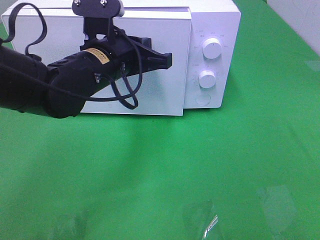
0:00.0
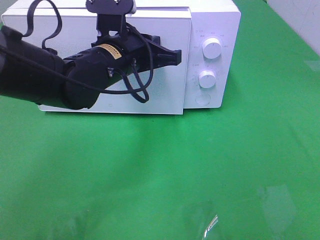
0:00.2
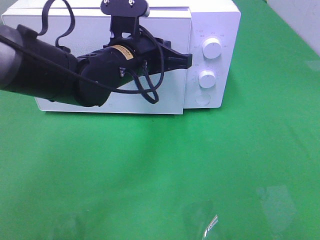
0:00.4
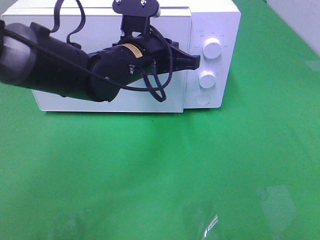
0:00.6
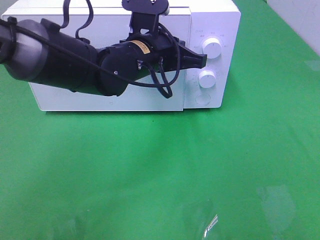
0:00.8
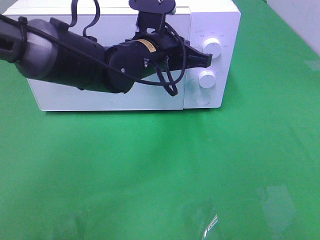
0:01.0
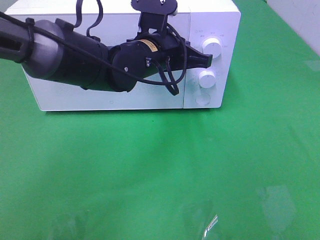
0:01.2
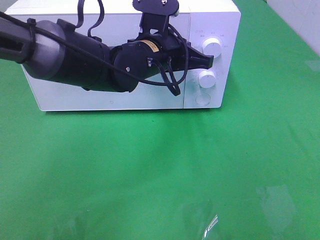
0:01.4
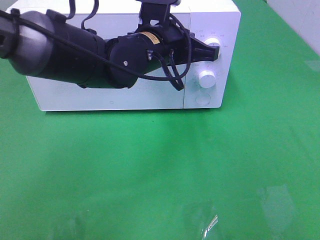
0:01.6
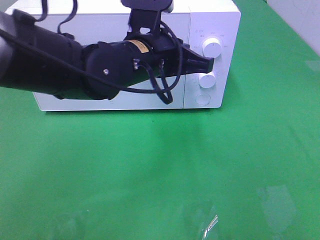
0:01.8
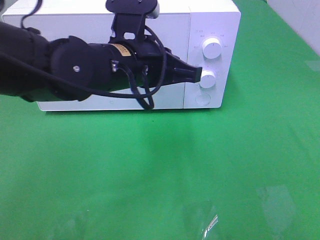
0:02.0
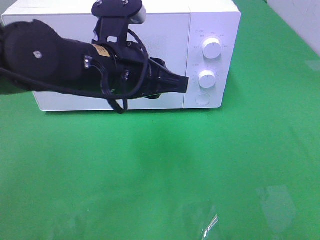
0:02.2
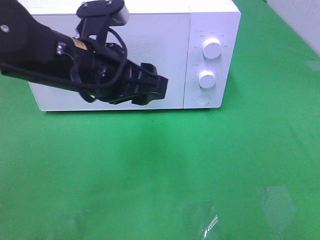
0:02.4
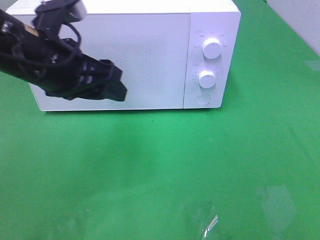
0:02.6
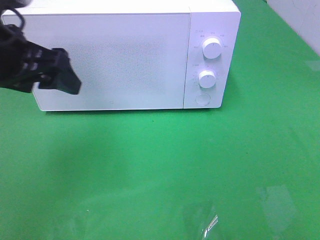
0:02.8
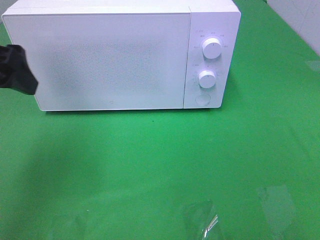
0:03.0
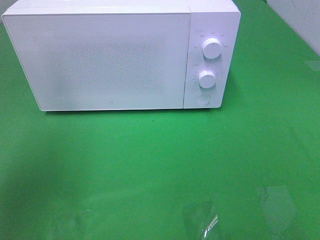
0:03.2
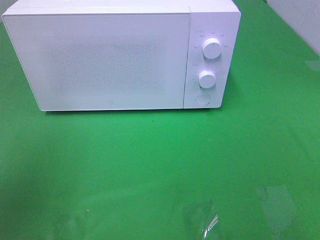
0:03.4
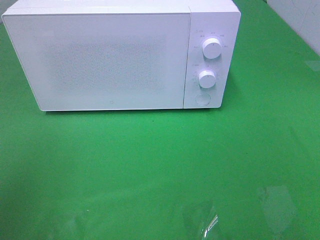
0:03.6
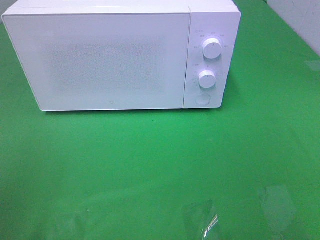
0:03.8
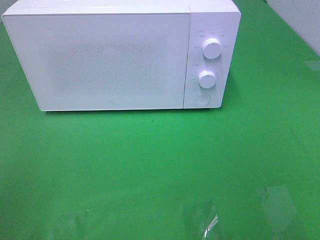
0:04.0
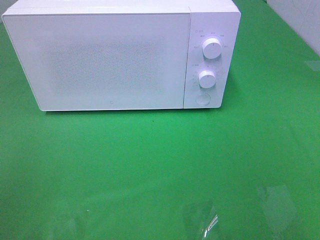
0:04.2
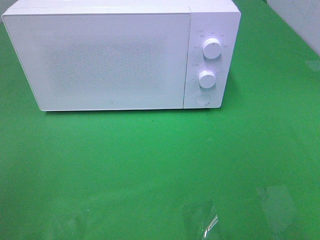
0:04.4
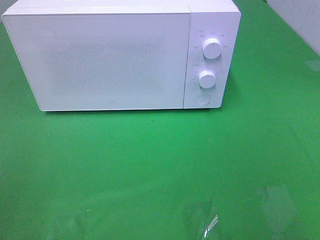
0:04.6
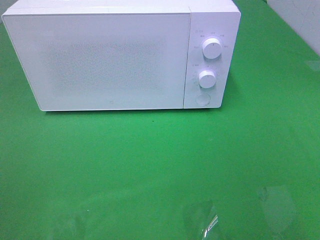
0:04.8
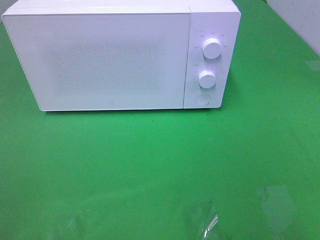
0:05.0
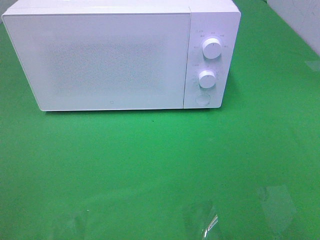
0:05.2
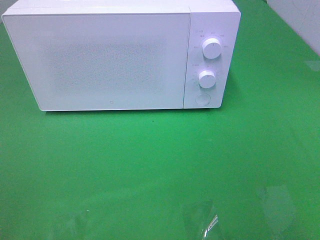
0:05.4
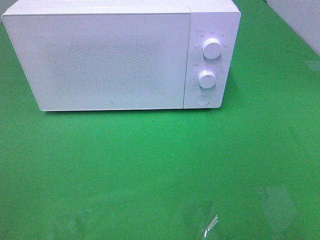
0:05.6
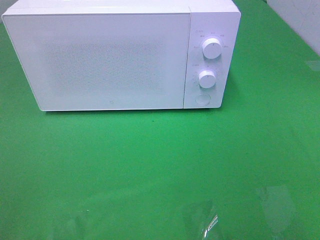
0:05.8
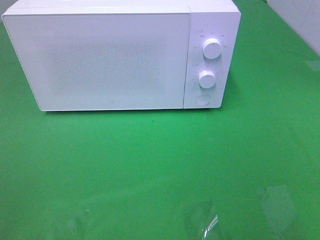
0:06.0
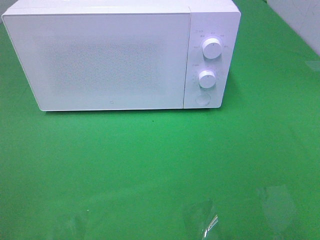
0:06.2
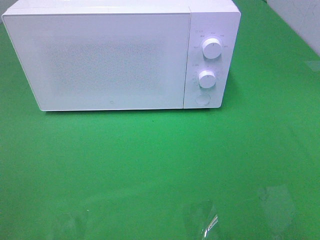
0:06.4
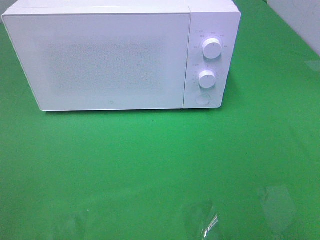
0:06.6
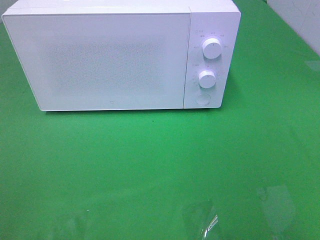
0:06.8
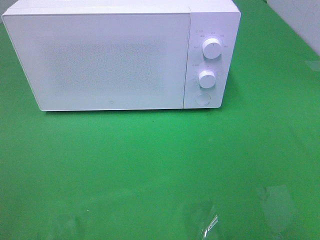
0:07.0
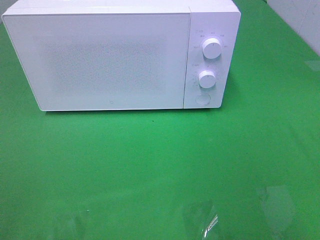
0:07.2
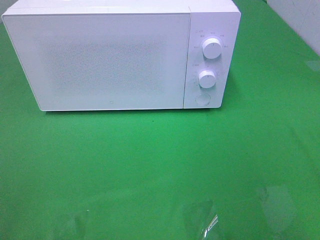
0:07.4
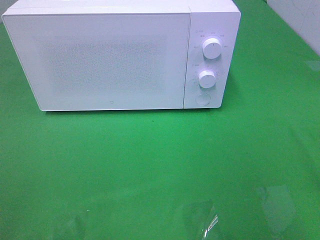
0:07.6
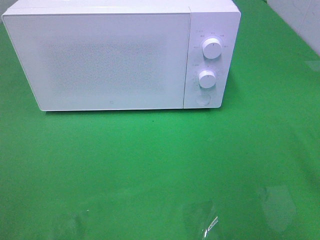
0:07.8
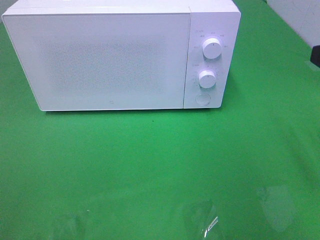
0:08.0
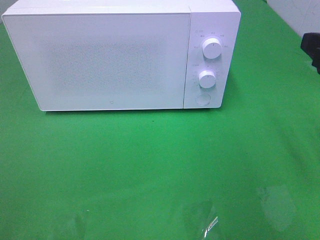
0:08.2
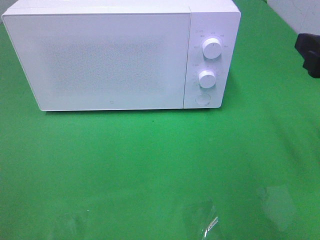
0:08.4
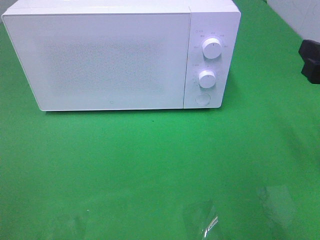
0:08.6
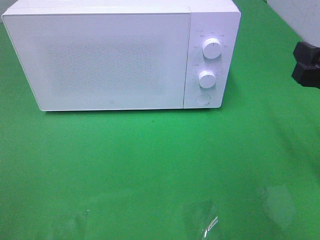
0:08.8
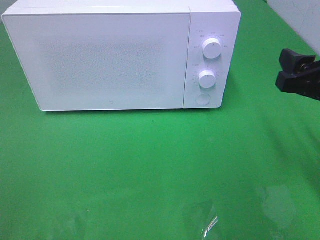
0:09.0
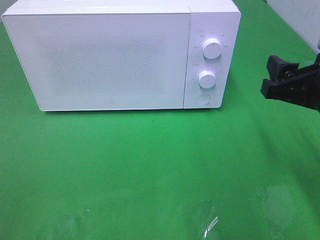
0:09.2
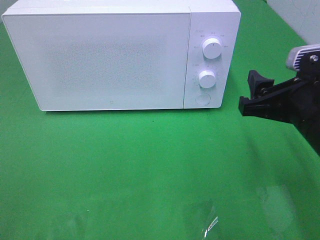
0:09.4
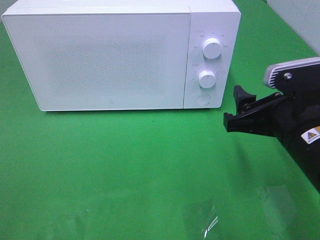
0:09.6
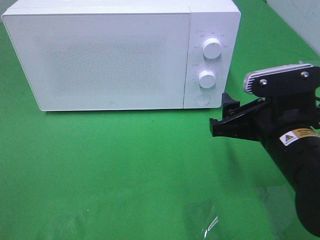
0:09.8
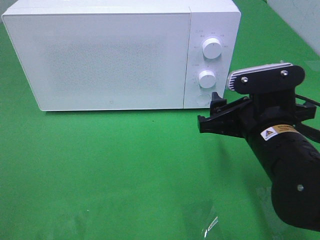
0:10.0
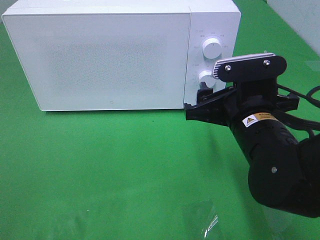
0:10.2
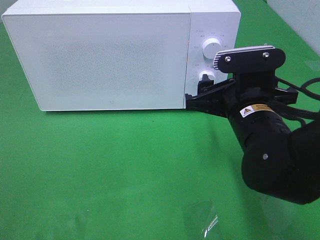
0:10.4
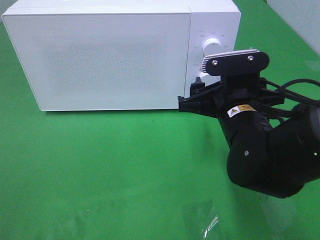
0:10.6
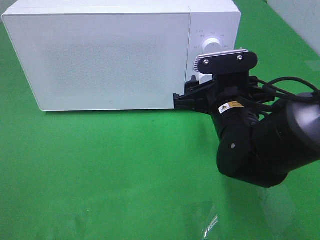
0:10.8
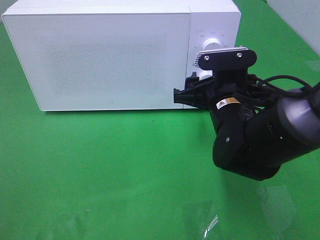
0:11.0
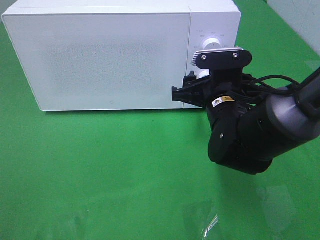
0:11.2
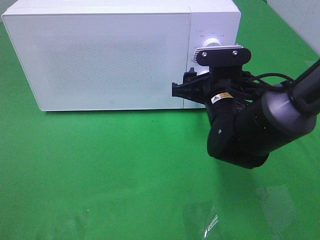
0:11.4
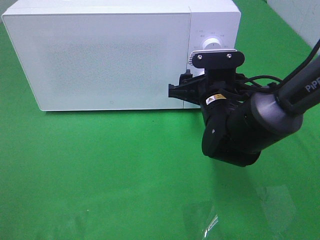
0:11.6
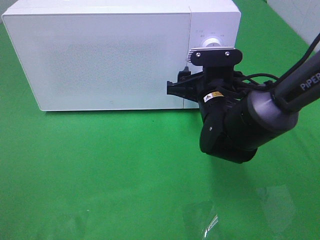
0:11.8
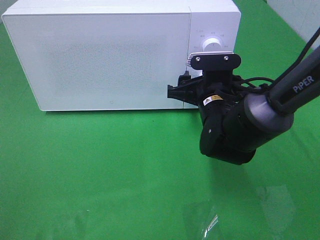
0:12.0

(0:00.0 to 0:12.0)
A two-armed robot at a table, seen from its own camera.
Task of the whole recording: Heat the burger.
0:00.0 - 0:01.6: The left gripper goes some 5 cm to the right.
0:01.6 - 0:03.0: The left gripper travels to the left by approximately 25 cm, and opens.
0:03.0 - 0:04.4: The left gripper goes about 20 cm backward.
0:07.6 - 0:09.0: The right gripper travels forward and downward by approximately 10 cm.
0:09.0 - 0:10.4: The right gripper moves to the left and downward, roughly 15 cm.
0:10.4 - 0:12.0: The right gripper shifts about 10 cm forward and downward.

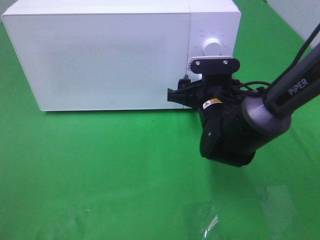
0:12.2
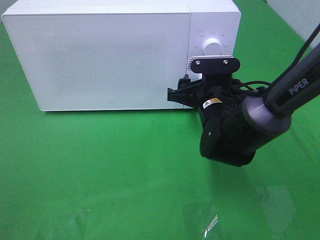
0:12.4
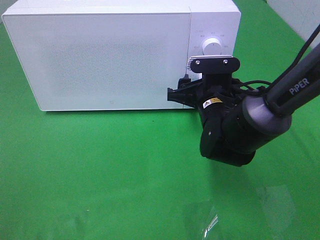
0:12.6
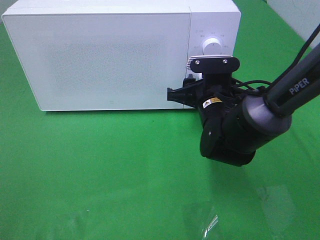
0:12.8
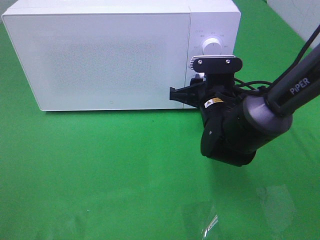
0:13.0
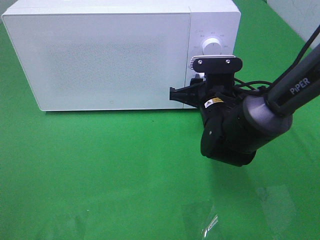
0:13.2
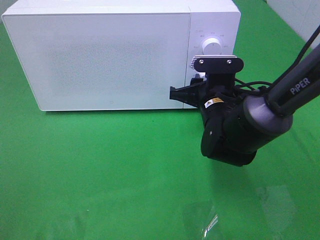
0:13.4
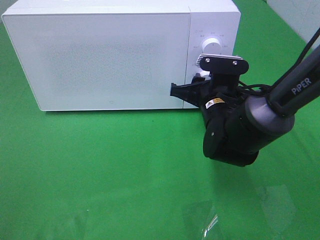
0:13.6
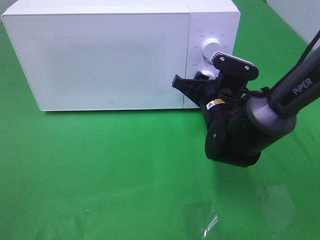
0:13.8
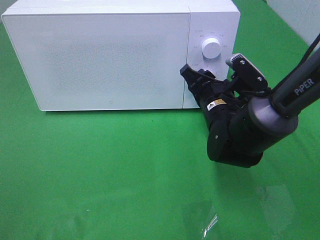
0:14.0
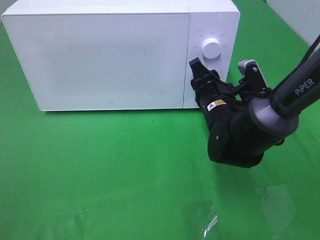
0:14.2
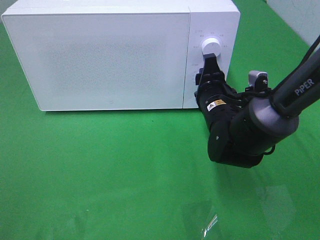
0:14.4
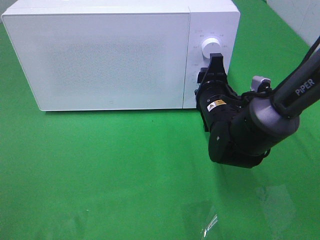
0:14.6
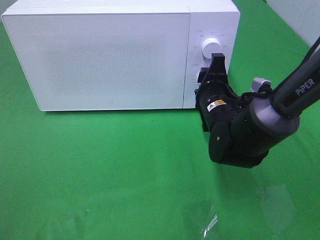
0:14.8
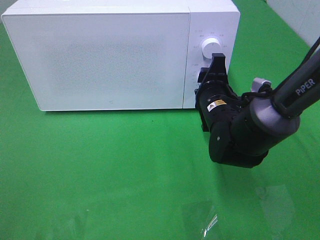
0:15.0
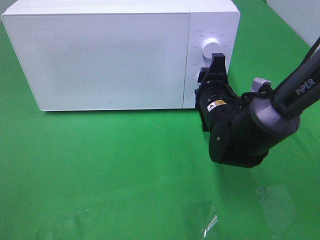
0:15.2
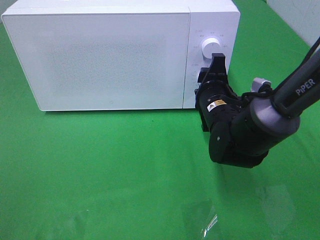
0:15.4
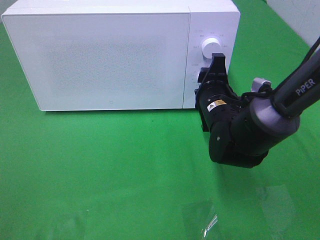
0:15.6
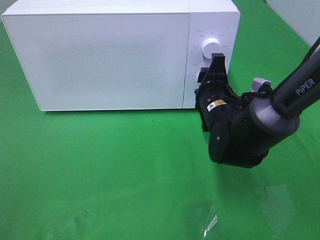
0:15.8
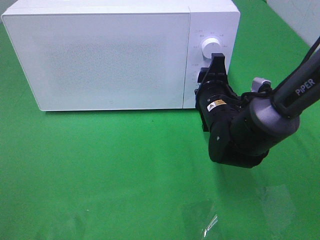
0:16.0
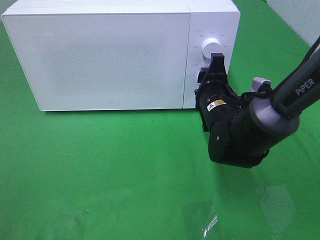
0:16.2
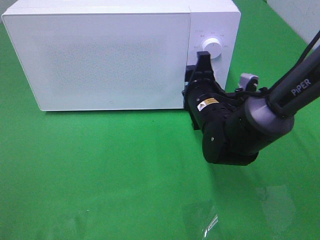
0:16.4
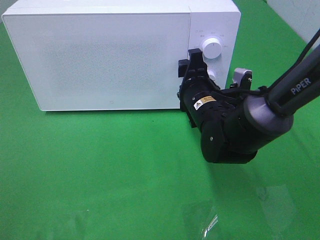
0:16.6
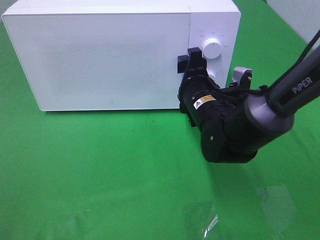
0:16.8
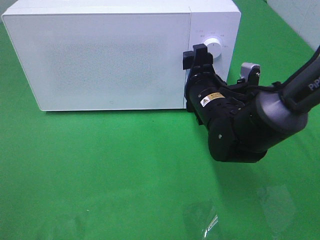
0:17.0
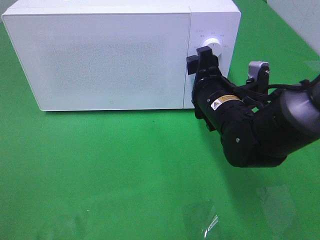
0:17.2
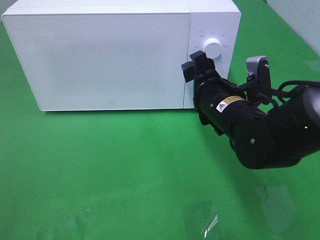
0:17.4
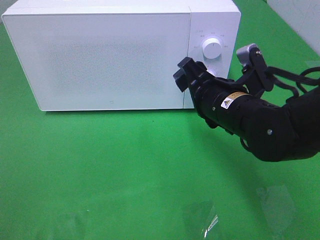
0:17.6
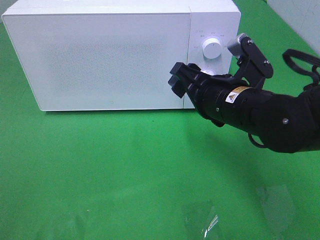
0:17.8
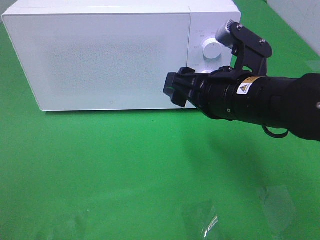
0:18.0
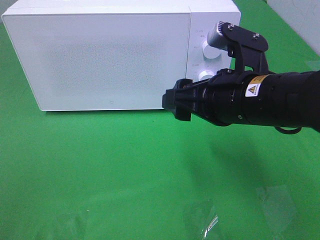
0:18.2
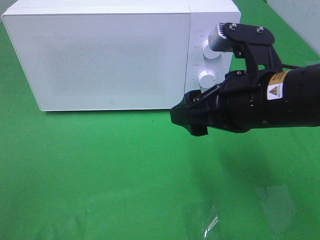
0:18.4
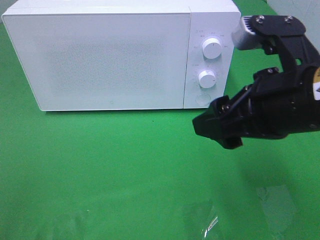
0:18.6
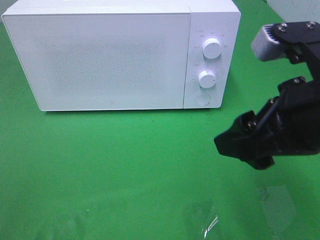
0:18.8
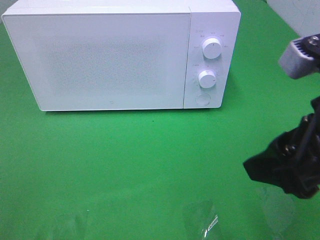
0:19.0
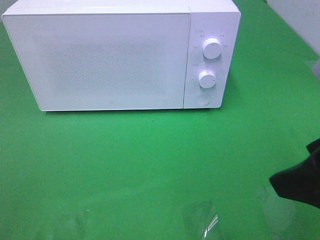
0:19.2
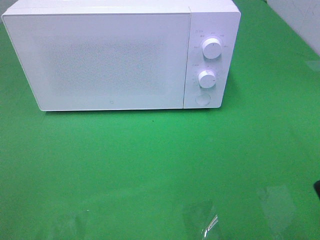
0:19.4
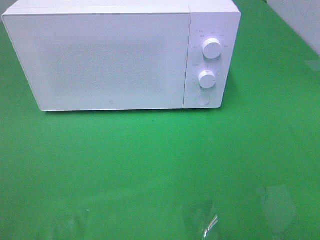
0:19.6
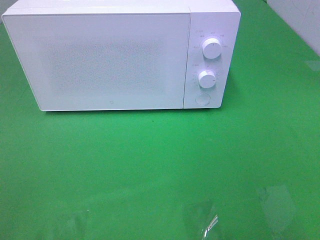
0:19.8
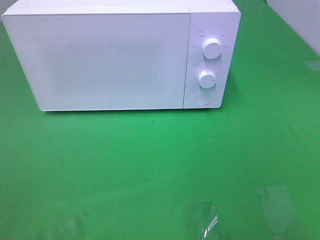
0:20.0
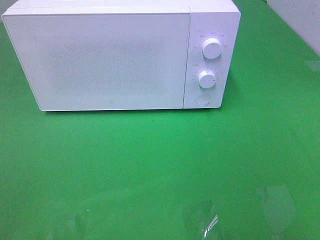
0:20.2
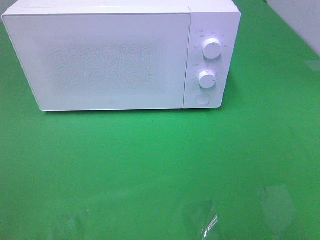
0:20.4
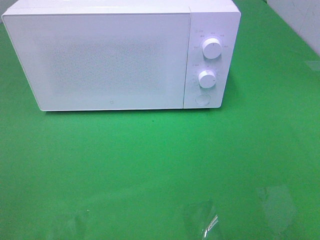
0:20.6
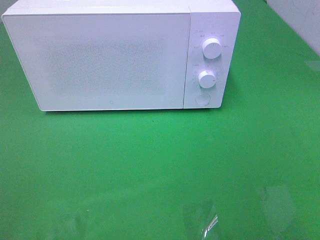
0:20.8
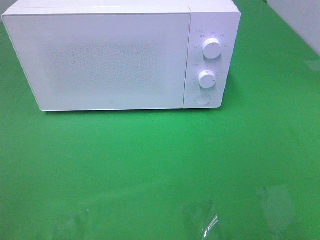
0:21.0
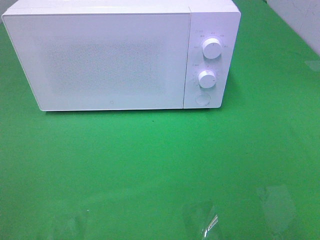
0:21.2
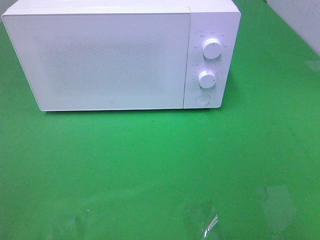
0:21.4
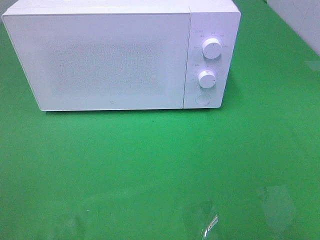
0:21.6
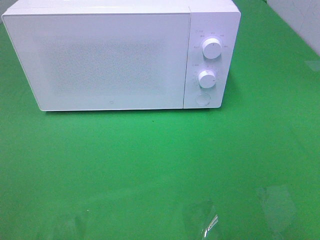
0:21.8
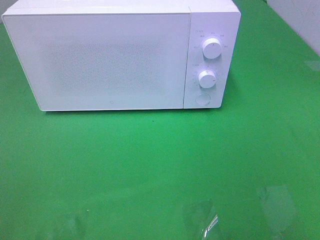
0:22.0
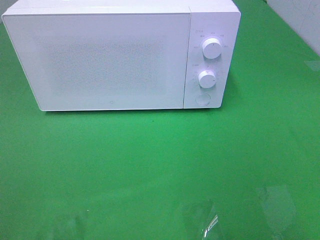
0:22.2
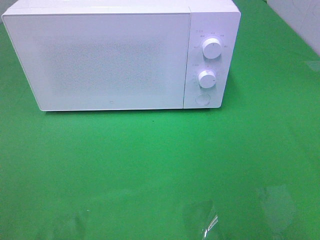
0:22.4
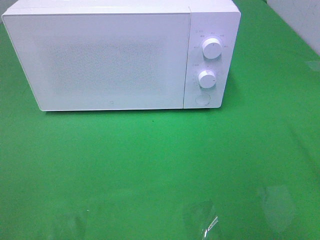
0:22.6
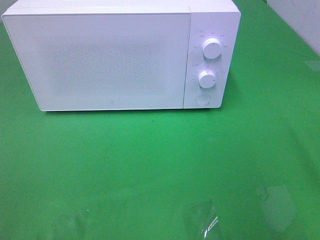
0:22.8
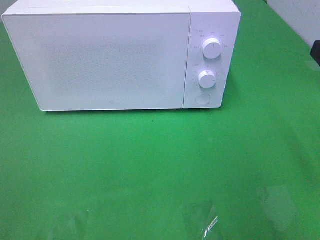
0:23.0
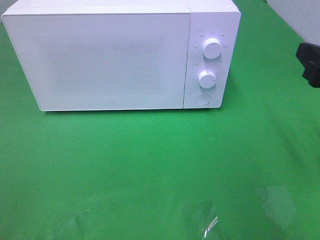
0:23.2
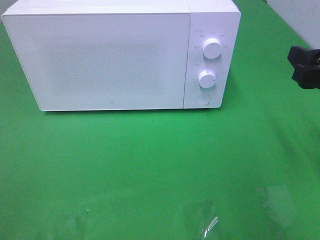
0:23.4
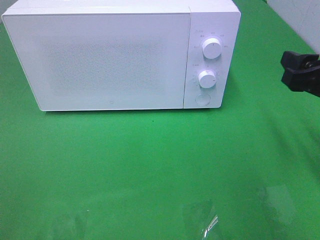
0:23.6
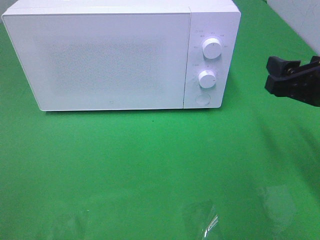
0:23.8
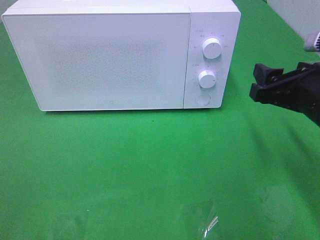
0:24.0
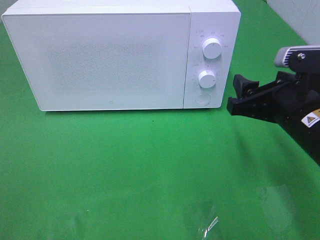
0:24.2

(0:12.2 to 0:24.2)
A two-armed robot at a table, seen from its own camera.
Task of the whole recording: Heat the burger.
Step, 0:12.2 - 0:16.6: Right hand: twist timer button.
0:12.2 - 0:13.8: The right gripper closes up.
0:15.2 - 0:16.6: There are only small adjustments of the grippers.
0:16.6 - 0:18.2: The right gripper shifts about 15 cm upward and backward.
0:18.2 - 0:19.8: The right gripper shifts approximately 30 cm backward, to the right and upward.
0:22.6 - 0:24.2: The right gripper heads downward, to the left and forward, covering roughly 15 cm.
